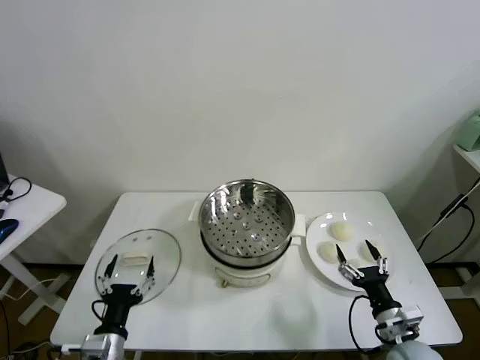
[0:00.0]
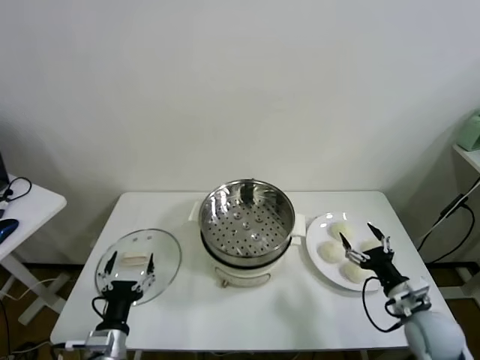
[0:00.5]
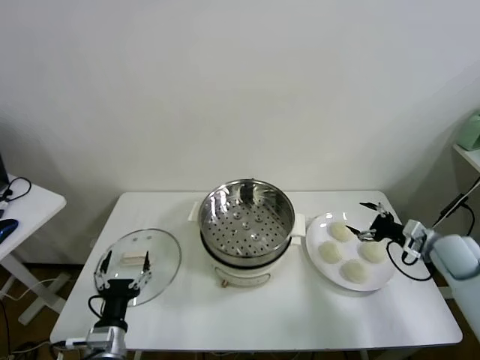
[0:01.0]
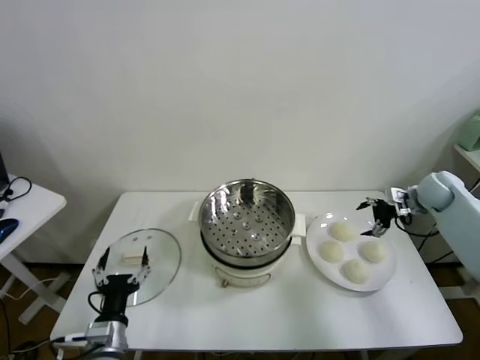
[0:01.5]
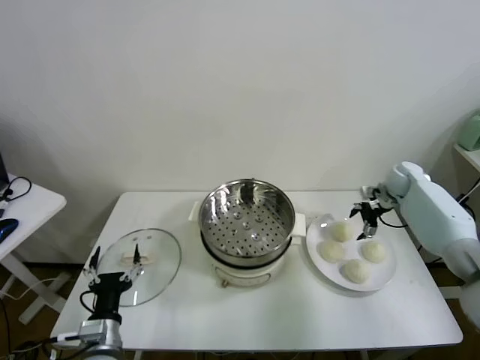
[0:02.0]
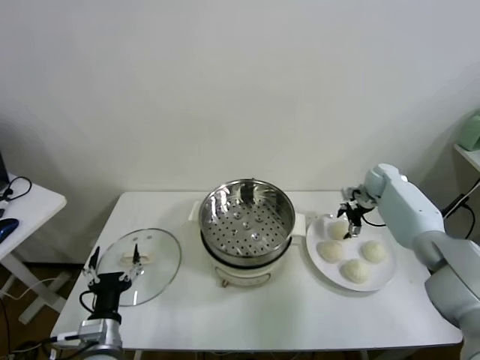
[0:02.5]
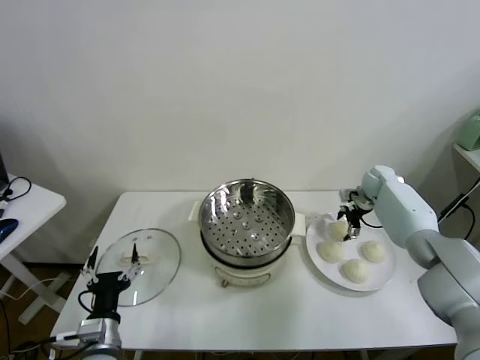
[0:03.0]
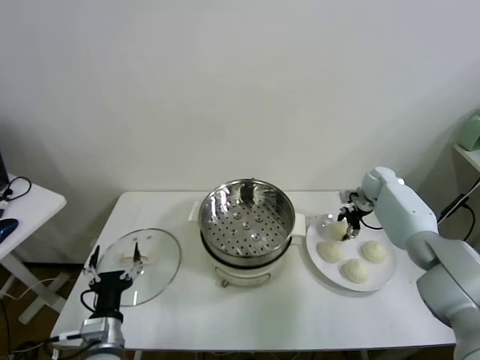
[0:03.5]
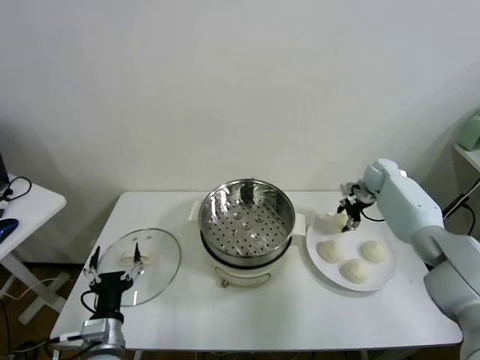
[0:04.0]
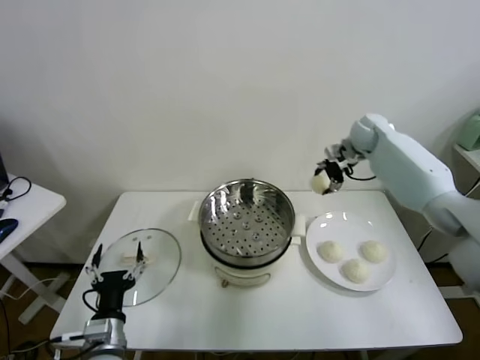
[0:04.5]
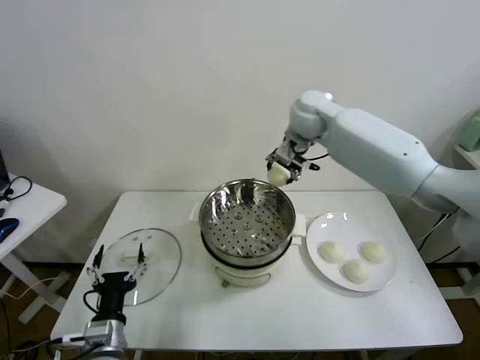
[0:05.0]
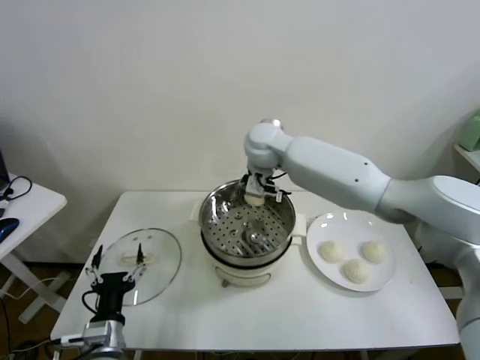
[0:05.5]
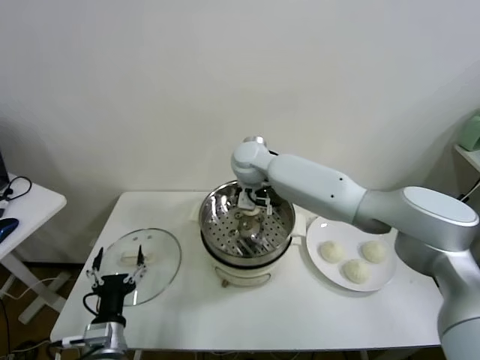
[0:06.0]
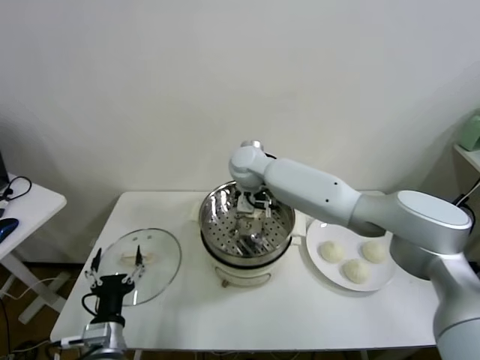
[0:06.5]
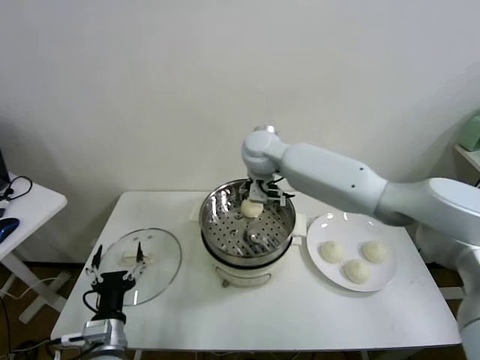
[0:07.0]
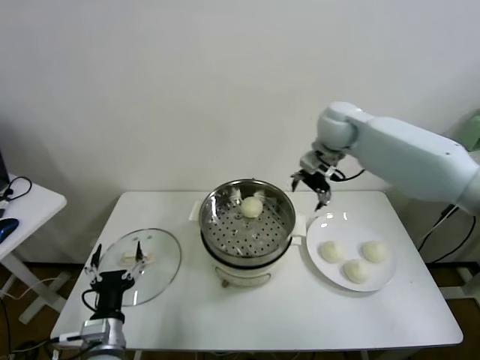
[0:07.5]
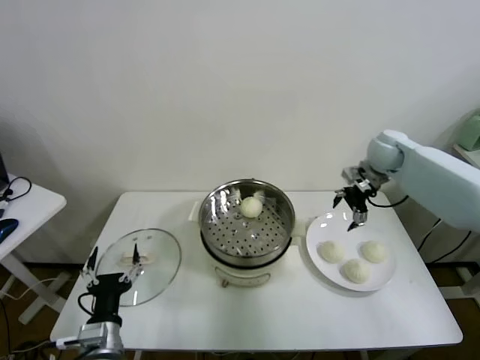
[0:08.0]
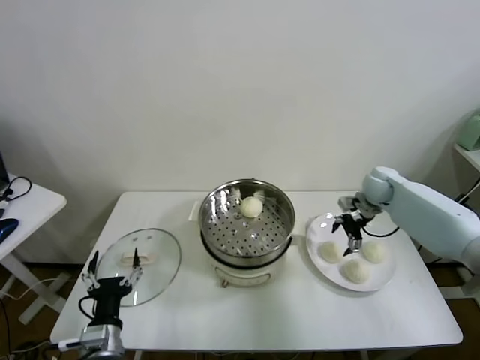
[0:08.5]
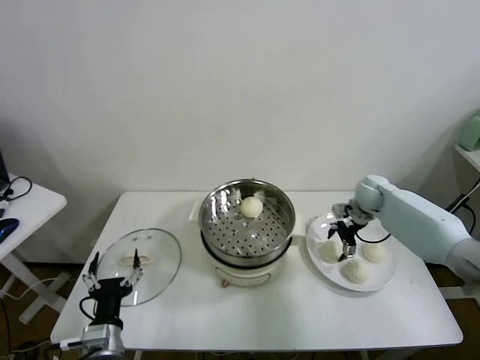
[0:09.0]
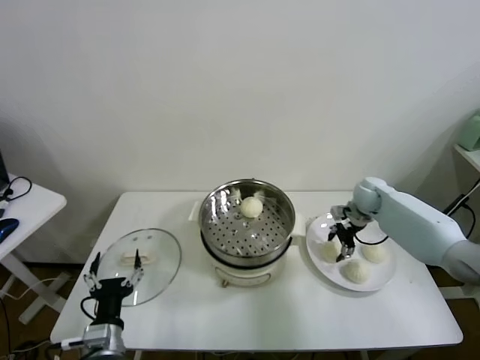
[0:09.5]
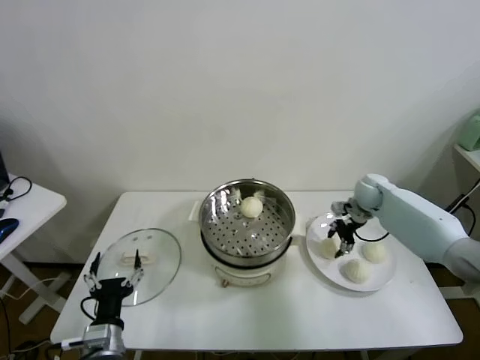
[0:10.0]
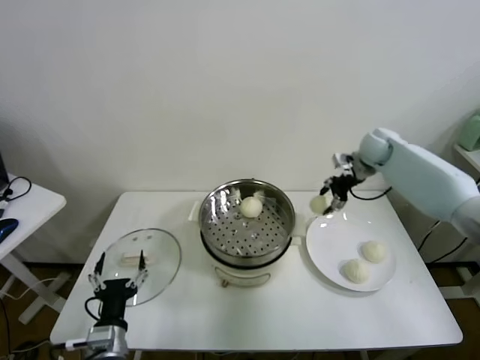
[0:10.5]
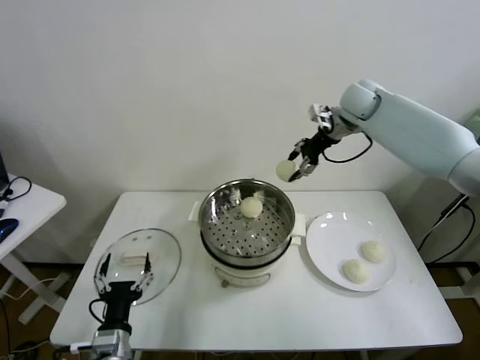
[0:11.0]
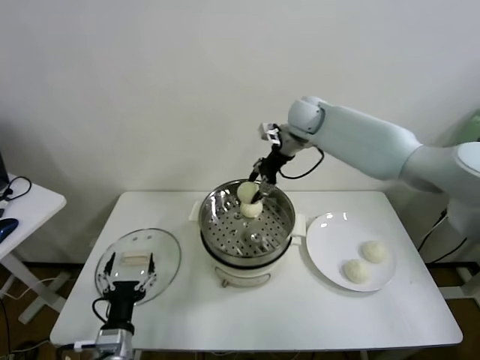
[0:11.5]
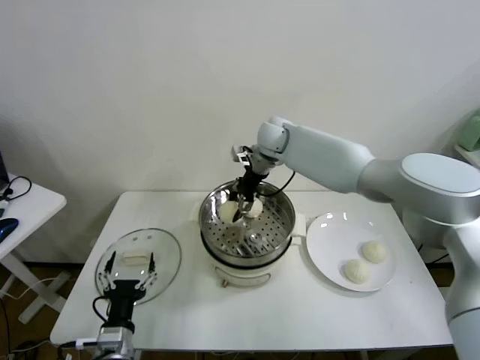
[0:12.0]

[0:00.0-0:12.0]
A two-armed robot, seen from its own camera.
Task of the whole recording: take steamed baozi put them in steamer.
Step, 0:00.0 to 0:03.0: Grasp the baozi in the plate with right gripper.
Step, 0:04.0 to 0:06.5: Place the baozi on the steamer with right gripper.
Step, 0:07.0 to 0:09.5: Grasp the baozi in the plate with right gripper.
0:02.0 to 0:04.0: The right gripper closes its fingers.
0:04.0 to 0:06.0: The right gripper moves to the left, some 40 cm.
0:06.0 to 0:08.0: The right gripper moves to the right, some 35 cm, and opens up.
0:08.0 to 0:10.0: The right gripper travels downward by some 10 cm, and closes its fingers.
0:10.0 to 0:12.0: The right gripper heads to the left and upward, covering about 30 cm.

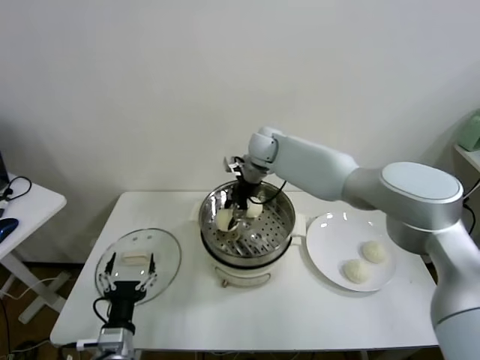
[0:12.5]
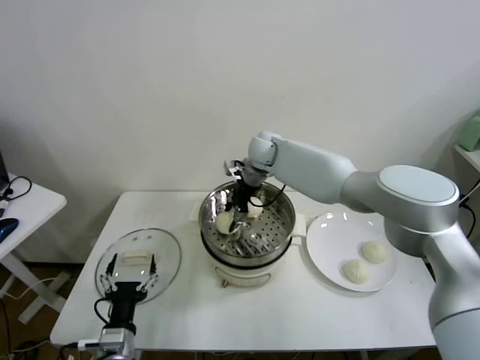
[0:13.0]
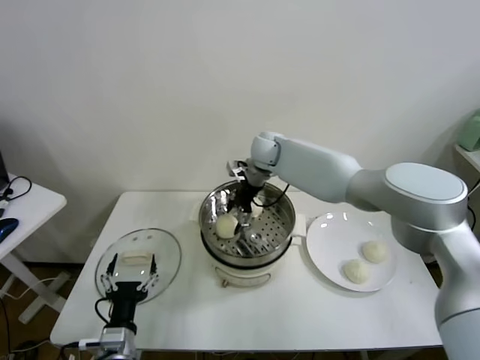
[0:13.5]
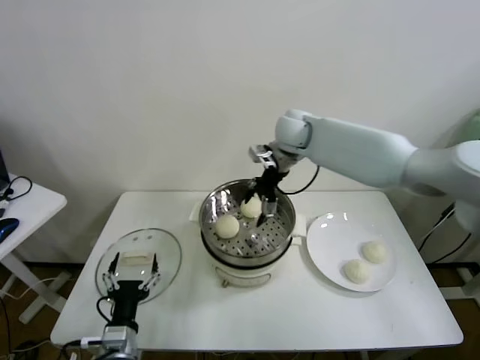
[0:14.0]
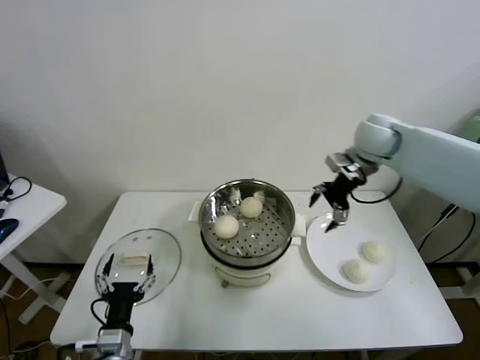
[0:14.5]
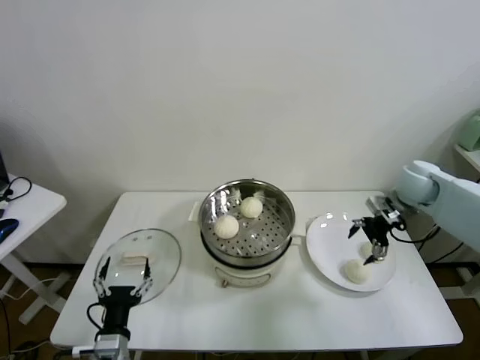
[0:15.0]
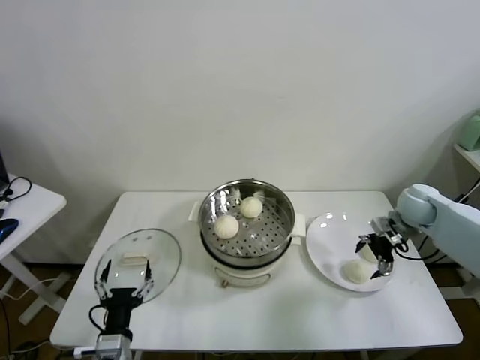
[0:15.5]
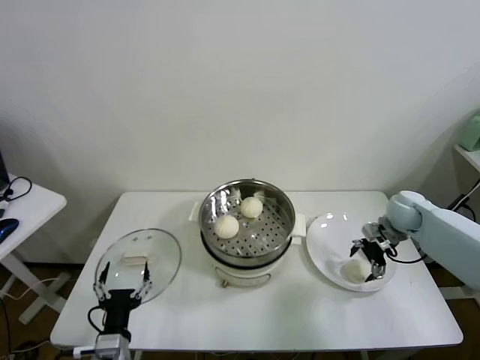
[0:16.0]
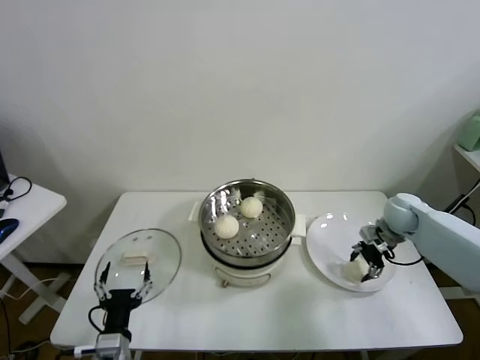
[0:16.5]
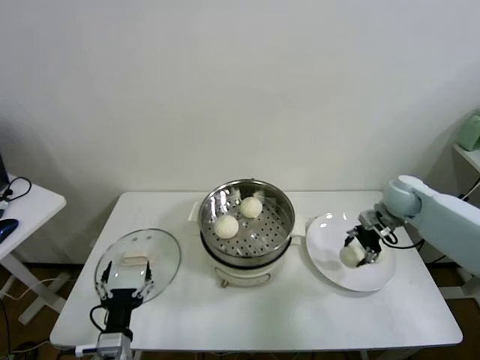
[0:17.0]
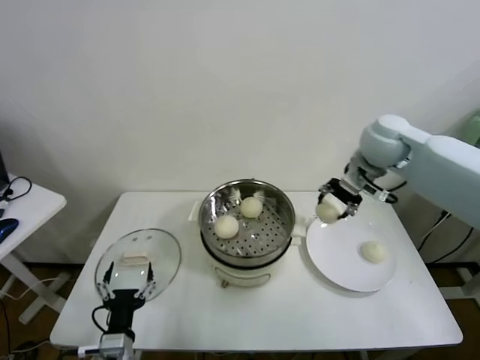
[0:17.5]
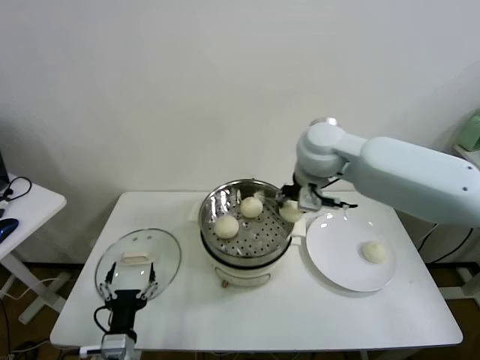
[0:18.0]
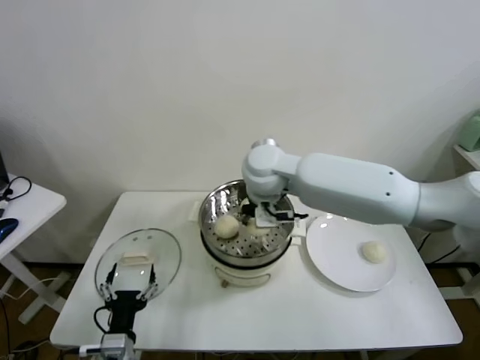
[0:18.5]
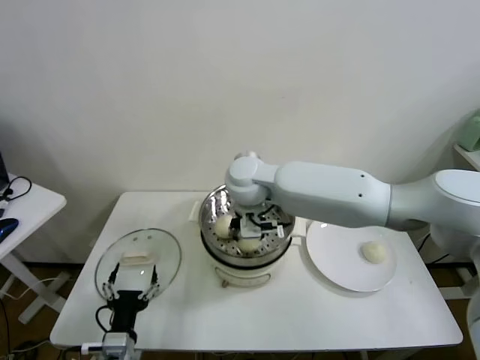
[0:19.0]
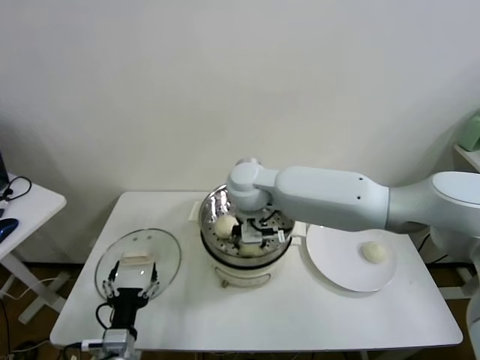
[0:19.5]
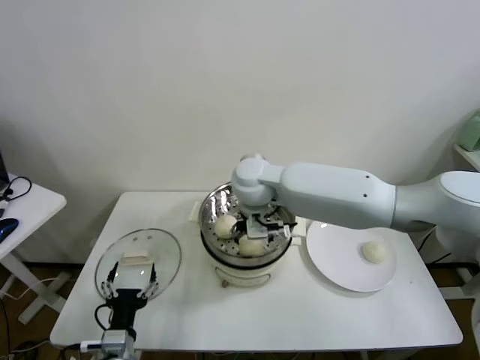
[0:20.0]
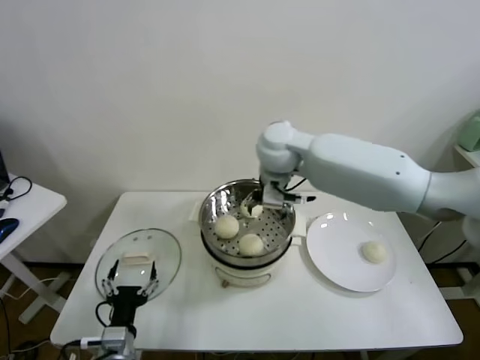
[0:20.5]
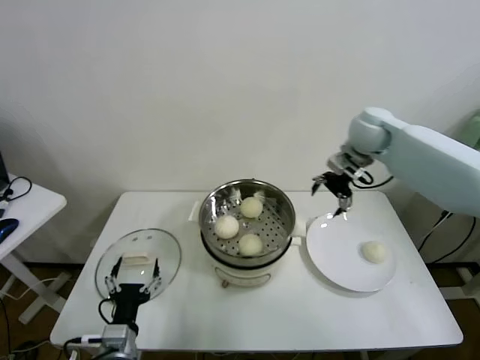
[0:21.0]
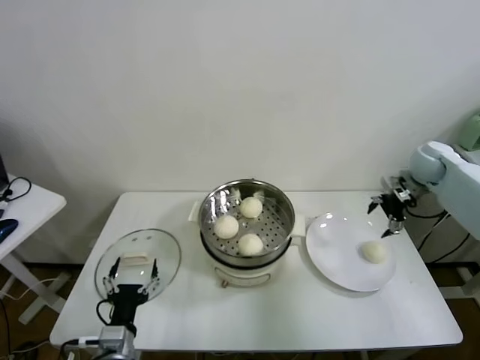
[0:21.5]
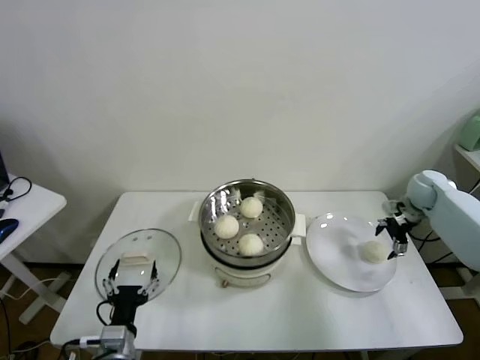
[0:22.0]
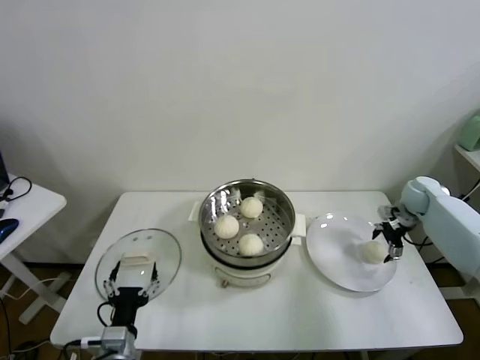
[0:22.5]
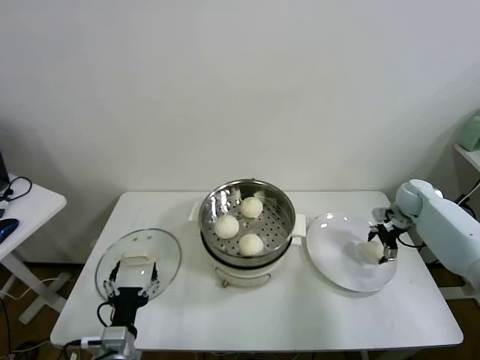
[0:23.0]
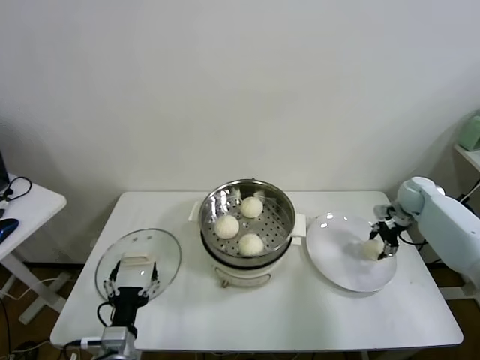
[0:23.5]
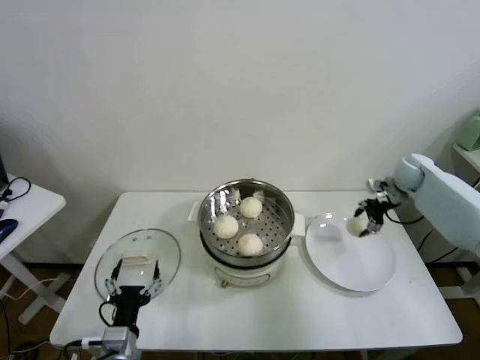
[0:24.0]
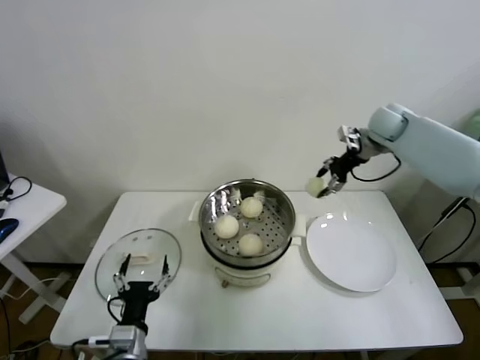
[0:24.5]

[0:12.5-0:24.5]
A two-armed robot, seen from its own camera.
Task of the whole recording: take steamed baozi put them in steamer.
Step, 0:14.0 to 0:16.0: Grasp the baozi in the plate with right gripper.
Step, 0:16.5 to 0:20.0: Place the baozi on the steamer with right gripper.
Step, 0:20.5 to 0:23.0: Grasp the baozi in the plate with right gripper.
0:12.5 to 0:14.5: The right gripper travels to the right by approximately 25 cm, and opens up.
0:14.5 to 0:16.5: The right gripper travels downward and to the right by roughly 20 cm, and closes up.
0:16.5 to 0:18.5: The right gripper goes approximately 40 cm to the left and upward.
0:18.5 to 0:20.5: The right gripper moves about 5 cm, and opens its fingers.
0:20.5 to 0:22.5: The right gripper is displaced to the right and downward by approximately 40 cm.
0:22.5 to 0:24.5: The right gripper is displaced upward and to the left by approximately 25 cm, and closes up.

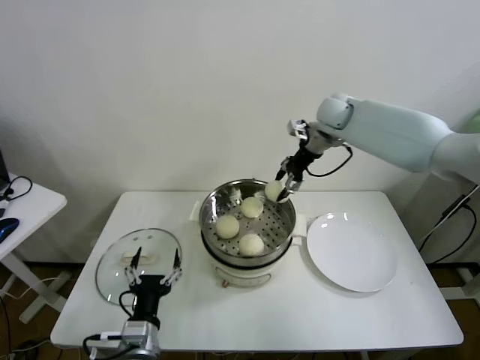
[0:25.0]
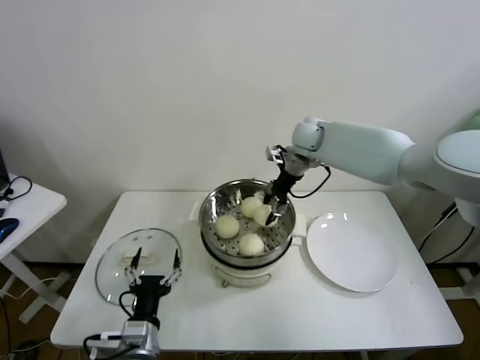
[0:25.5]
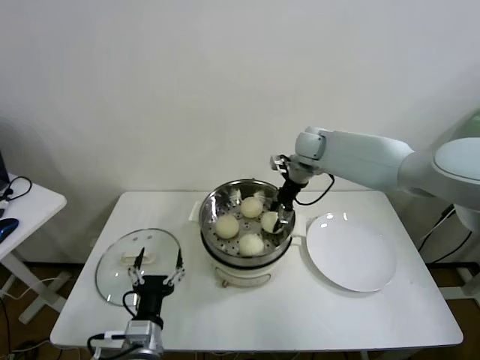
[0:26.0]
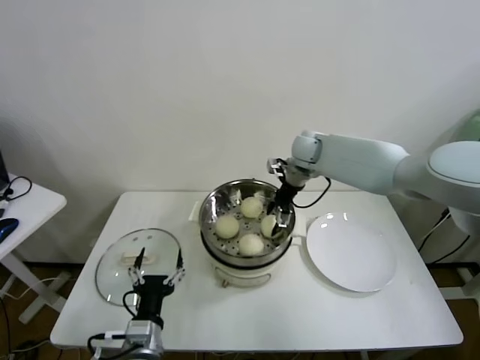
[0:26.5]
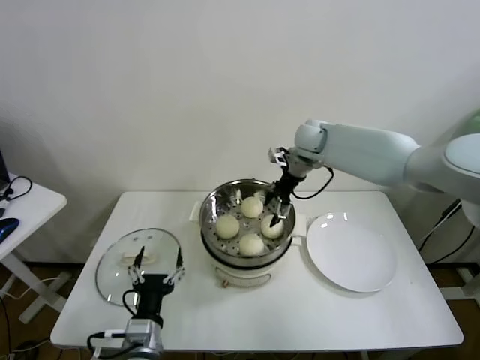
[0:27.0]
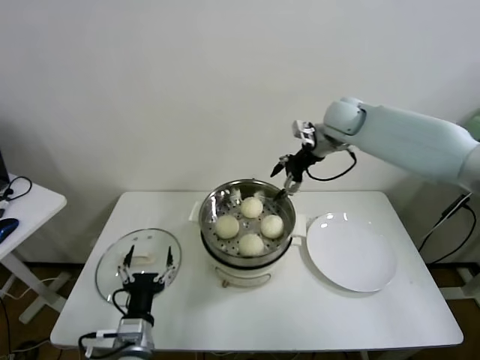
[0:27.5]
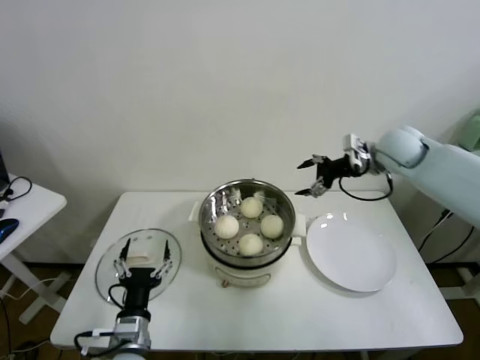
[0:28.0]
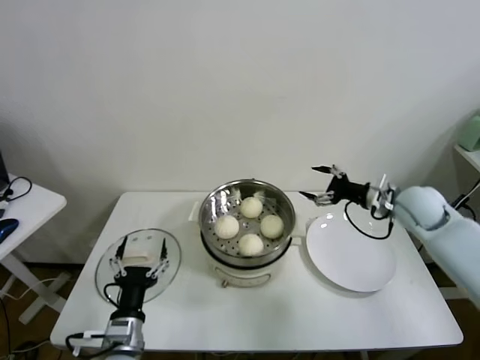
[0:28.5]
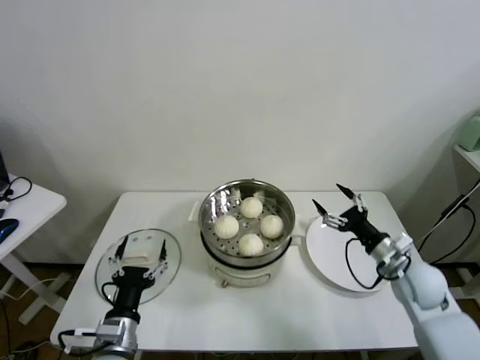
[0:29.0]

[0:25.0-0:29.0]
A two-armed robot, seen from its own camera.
Task of the whole recording: take steamed baozi put them in steamer.
0:25.0 to 0:27.0: The right gripper travels downward by approximately 5 cm, and opens up.
0:27.0 to 0:29.0: The right gripper heads backward, to the right and downward, covering some 35 cm.
